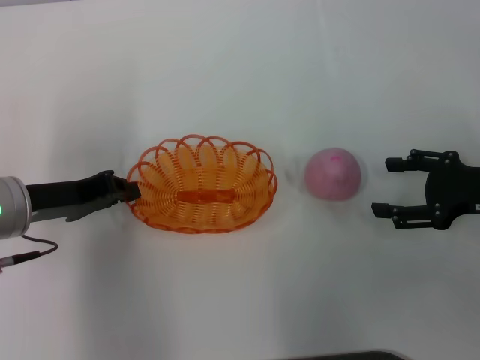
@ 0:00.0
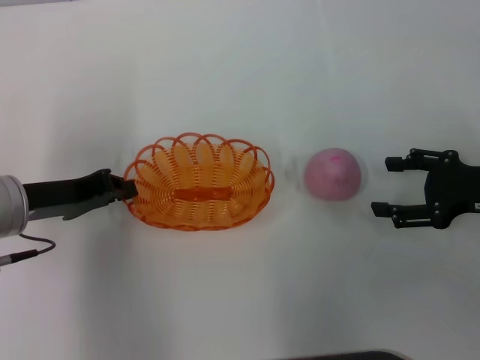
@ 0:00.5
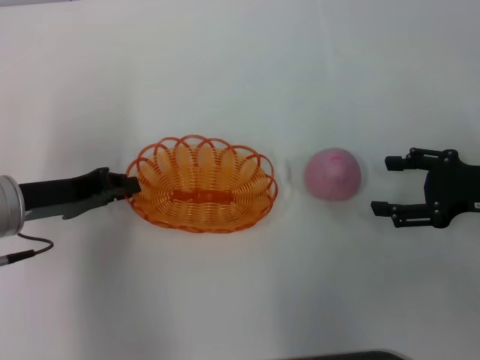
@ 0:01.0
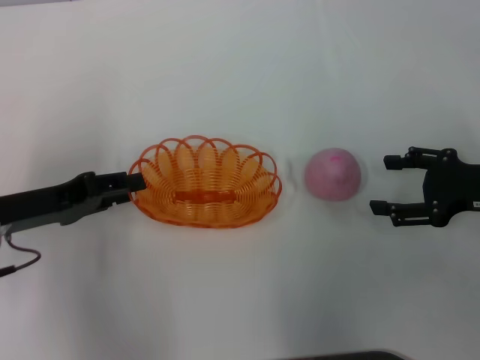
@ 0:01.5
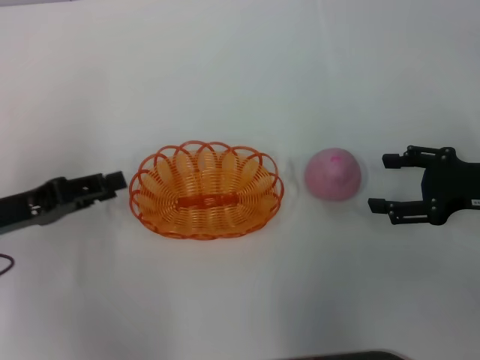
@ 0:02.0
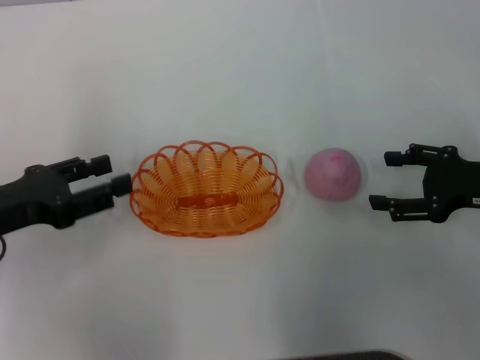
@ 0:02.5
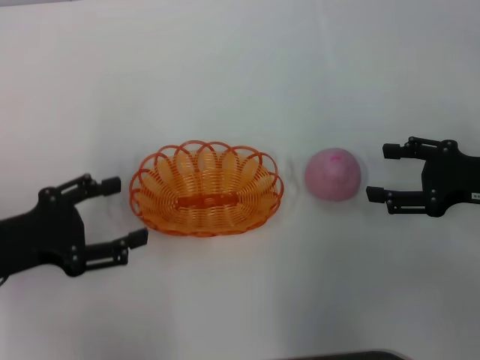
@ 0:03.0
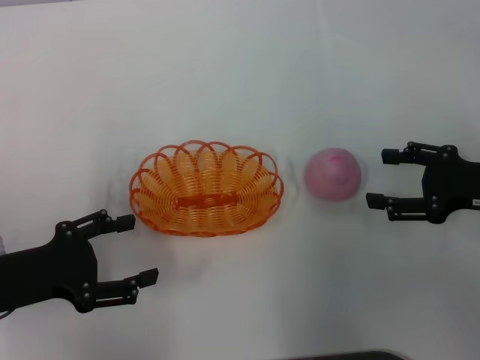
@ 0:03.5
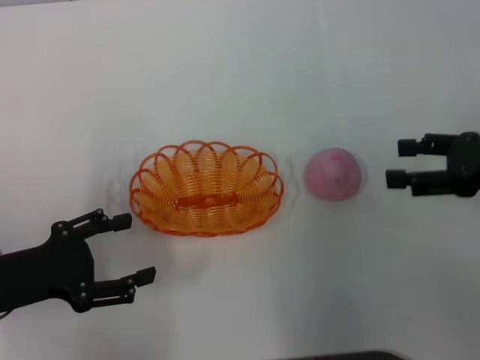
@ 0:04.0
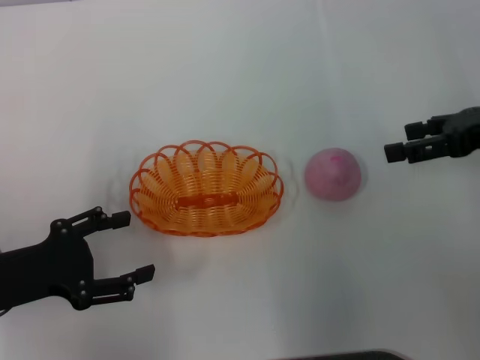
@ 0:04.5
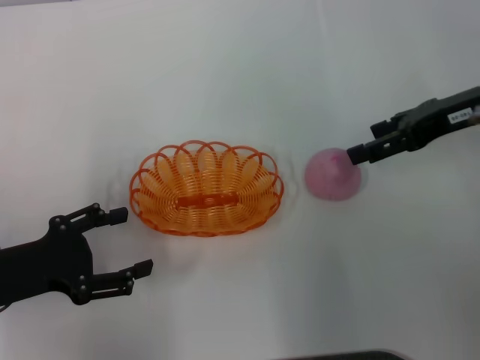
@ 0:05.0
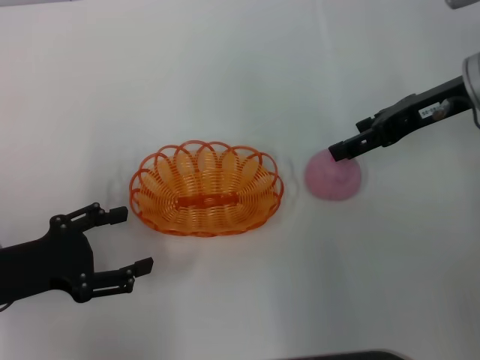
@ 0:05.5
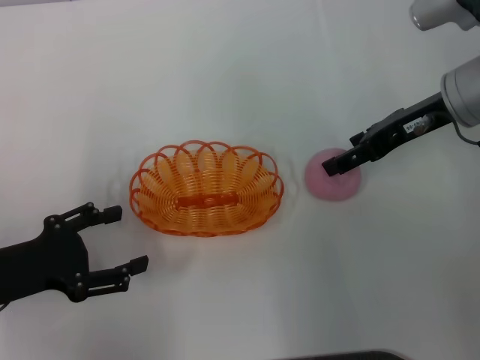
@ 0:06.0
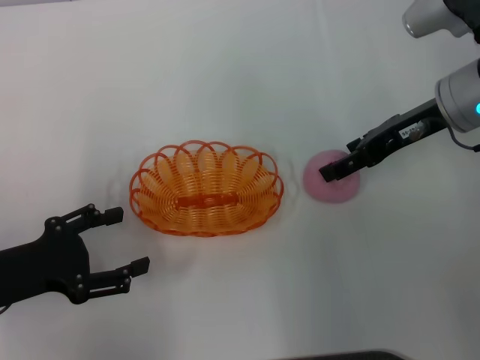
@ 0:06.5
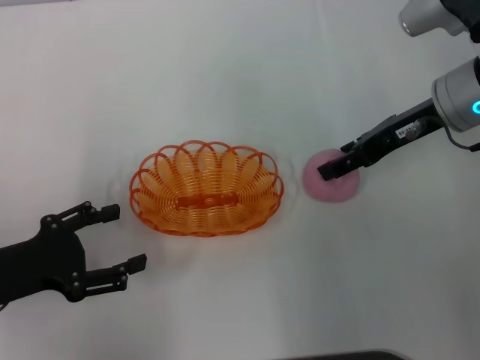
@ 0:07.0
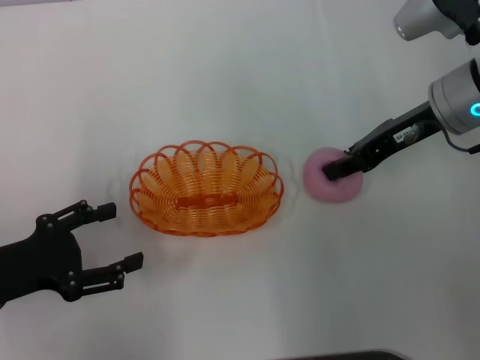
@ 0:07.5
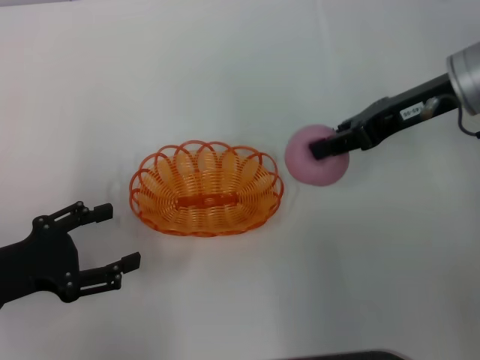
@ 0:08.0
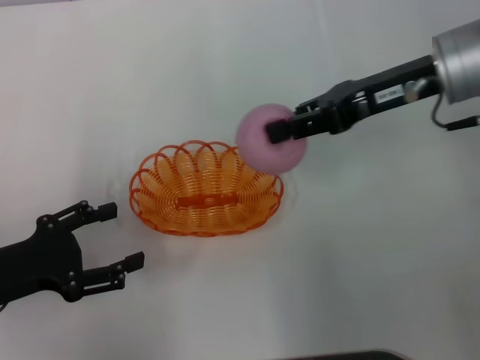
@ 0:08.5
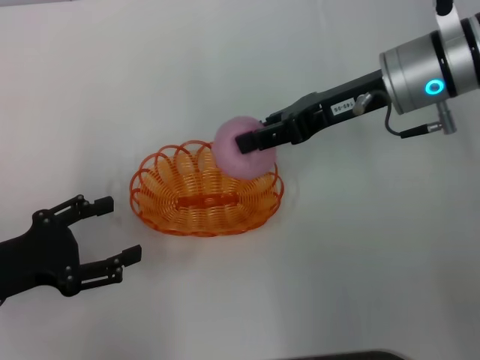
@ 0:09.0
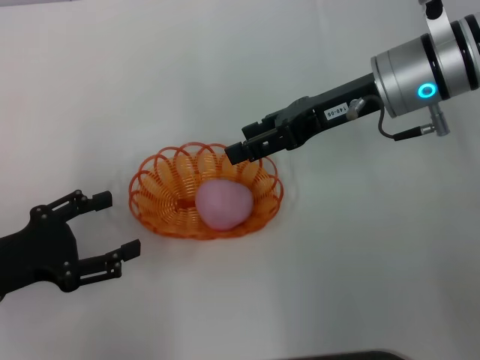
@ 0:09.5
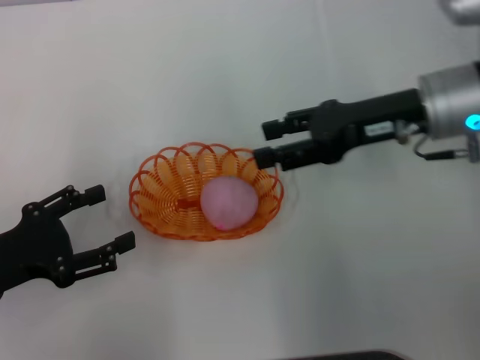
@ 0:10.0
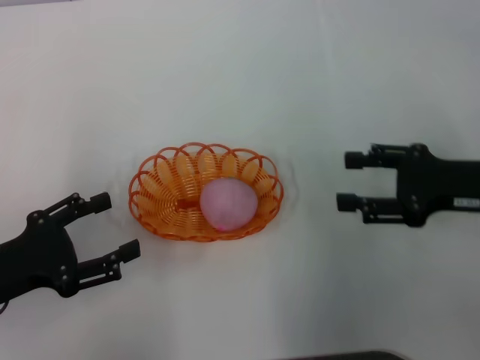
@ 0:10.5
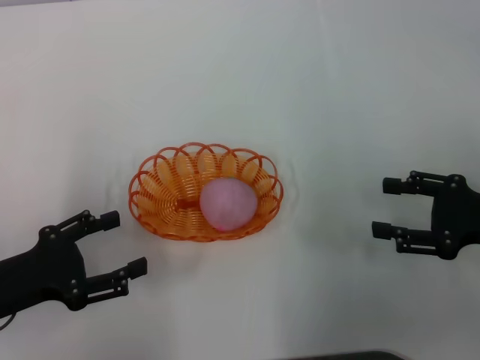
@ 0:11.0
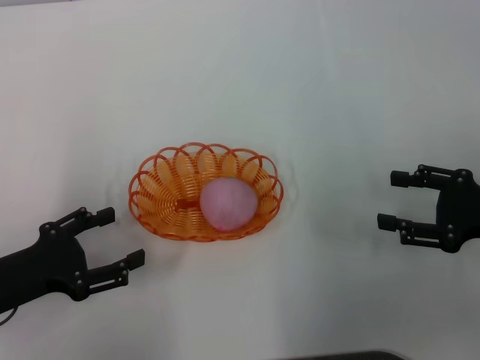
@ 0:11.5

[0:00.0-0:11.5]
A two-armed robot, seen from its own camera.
Step, 0:02.0 to 0:08.0: Pick up the peach with the right gripper.
Step, 0:08.5 to 0:09.5: Place the peach into the basket with the right gripper.
0:00.0 to 0:02.0: The left gripper travels to the left by roughly 5 cm, and opens its fingers.
0:02.0 to 0:04.0: The left gripper opens.
0:04.0 to 0:06.0: The right gripper shifts some 15 cm to the left and forward.
0:06.0 to 0:07.5: The right gripper closes.
0:07.5 to 0:09.5: The right gripper shifts roughly 5 cm to the left.
0:09.5 to 0:11.5: The right gripper moves to the right, backward and downward, some 20 cm.

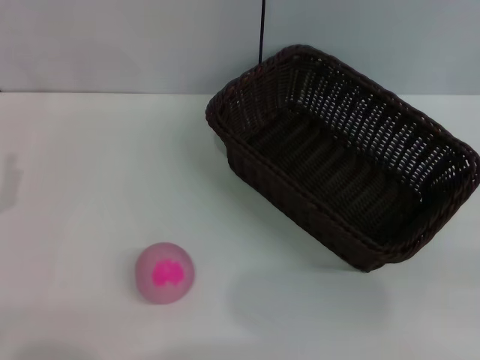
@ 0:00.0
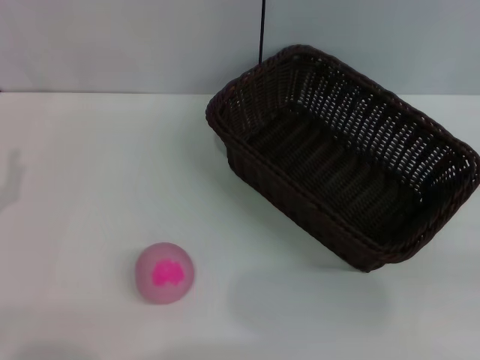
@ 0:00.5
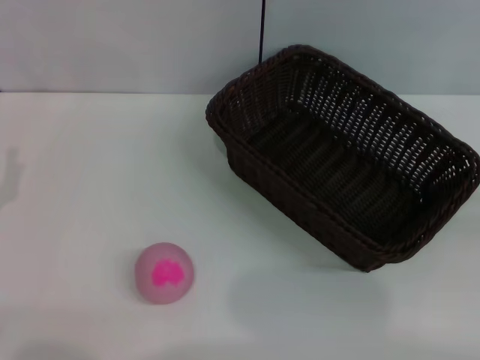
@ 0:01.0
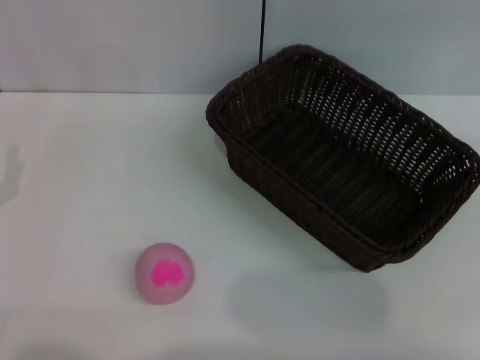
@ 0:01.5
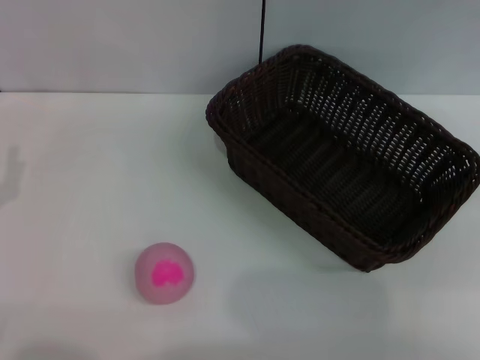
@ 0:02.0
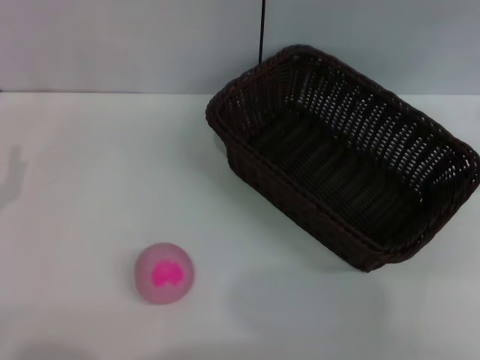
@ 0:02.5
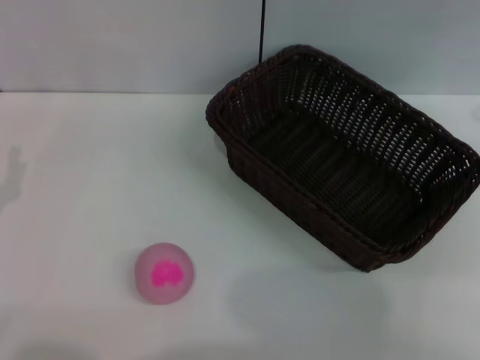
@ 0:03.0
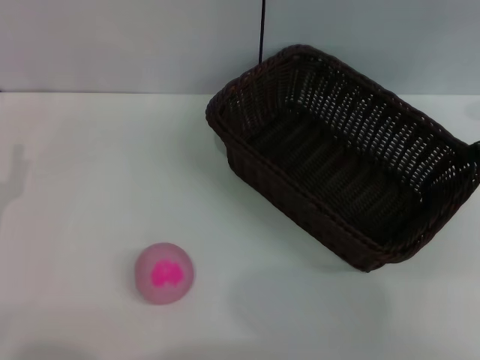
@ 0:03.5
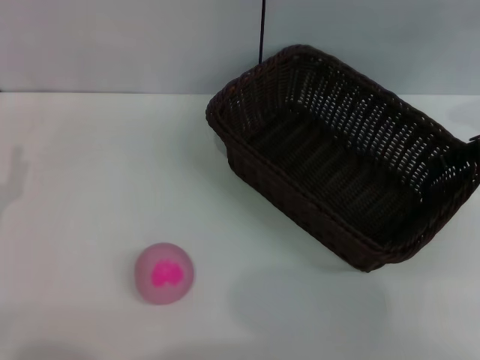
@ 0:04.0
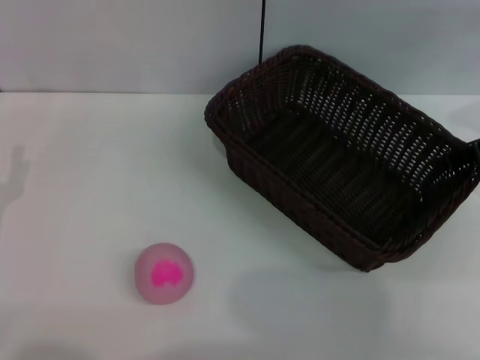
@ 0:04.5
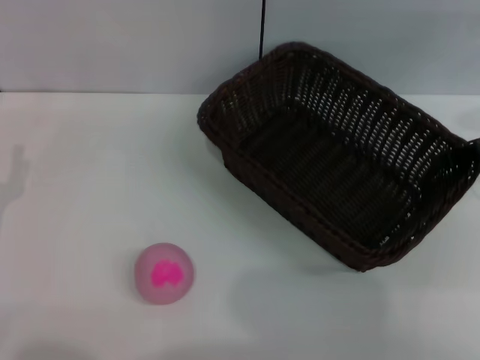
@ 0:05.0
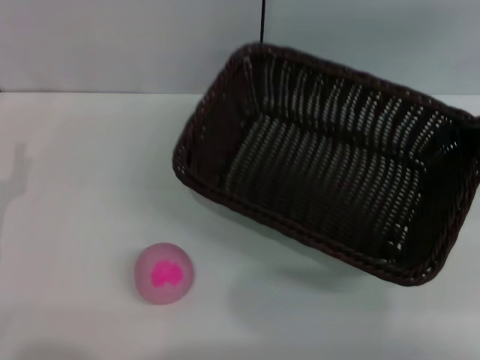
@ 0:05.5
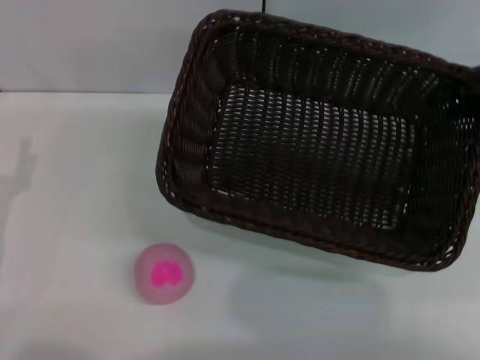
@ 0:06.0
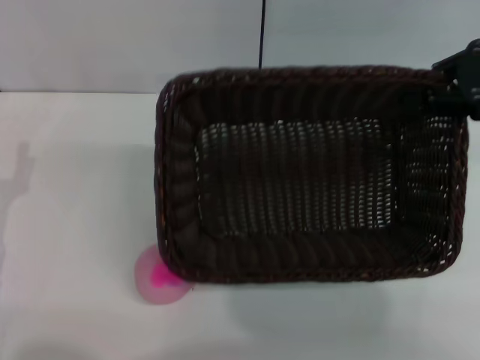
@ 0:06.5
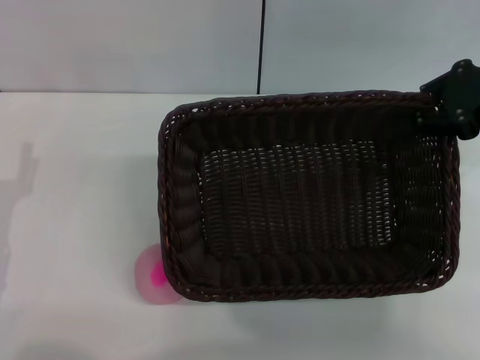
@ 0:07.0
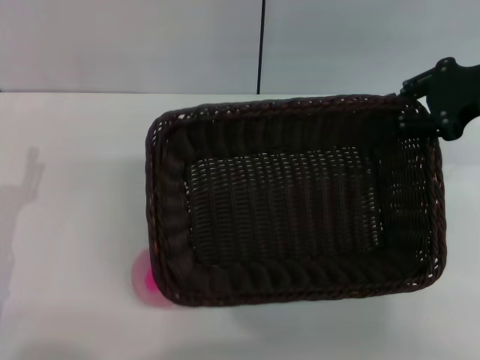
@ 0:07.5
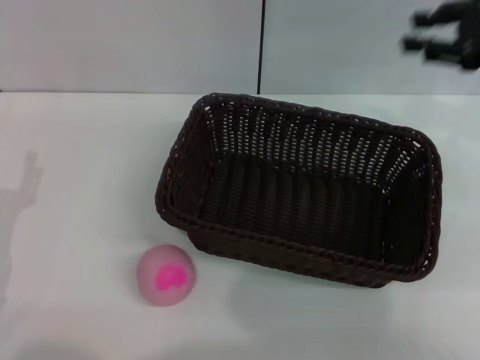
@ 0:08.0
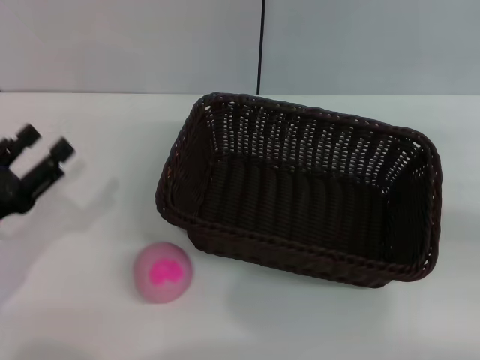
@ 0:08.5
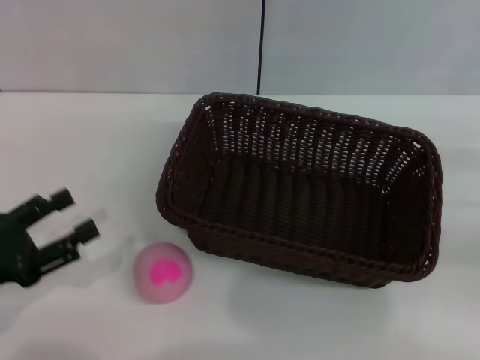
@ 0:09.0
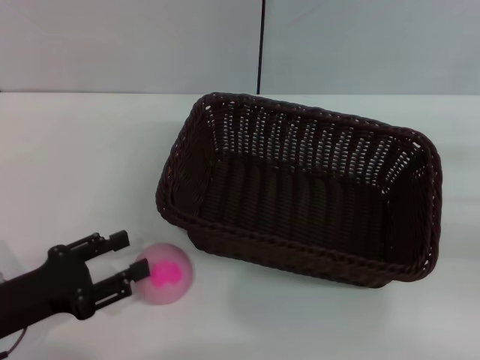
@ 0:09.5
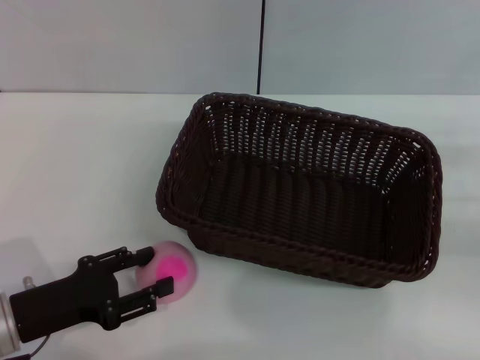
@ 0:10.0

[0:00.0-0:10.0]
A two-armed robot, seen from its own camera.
Step, 0:00.0 to 0:05.5: Pick up the dark basket with the right gripper.
Step, 0:06.0 to 0:07.5: Place the dark basket in the center of view with the right gripper.
0:00.0 to 0:02.0: The right gripper shifts roughly 25 cm upward and forward, and opens its fingers.
0:04.0 to 0:06.0: The right gripper moves some 5 cm, and closes its fingers.
0:06.0 to 0:08.0: The right gripper opens up.
0:08.0 to 0:10.0: The right gripper travels downward, backward and to the right by approximately 20 cm.

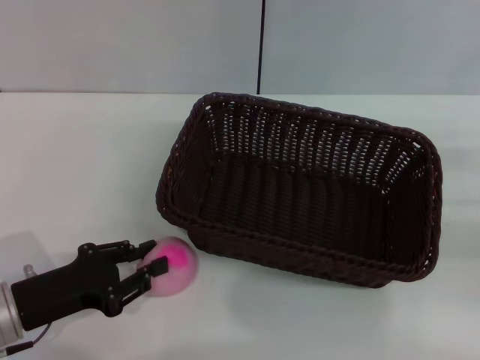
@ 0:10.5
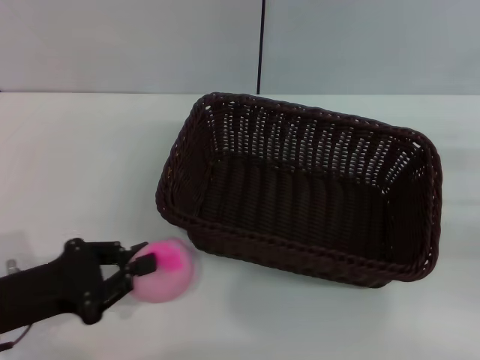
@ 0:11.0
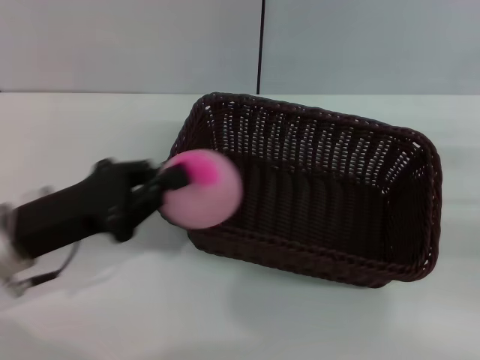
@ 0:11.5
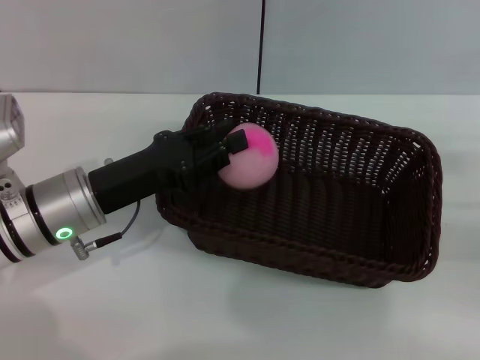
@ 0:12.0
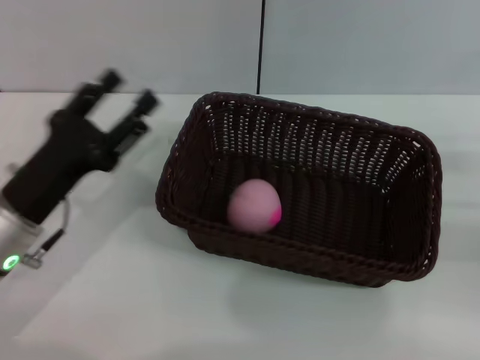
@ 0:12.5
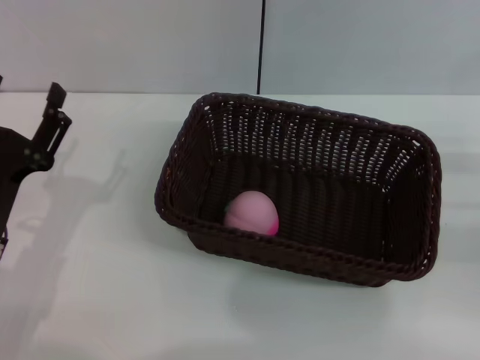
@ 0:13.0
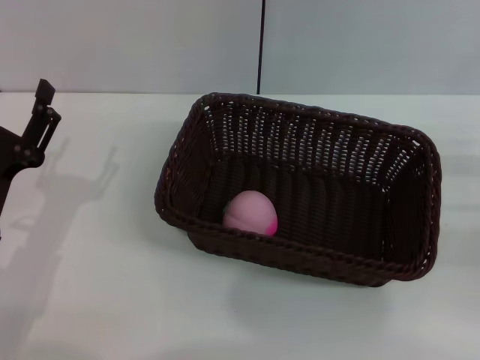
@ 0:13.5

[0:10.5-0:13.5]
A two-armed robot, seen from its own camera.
Step, 0:11.5 to 0:12.0: Place the peach into the basket with the left gripper.
0:10.5 to 0:12.0: The left gripper goes about 10 cm forward and to the right, and closes.
0:12.0 to 0:13.5: The left gripper shifts some 10 cm backward and to the left, and opens up.

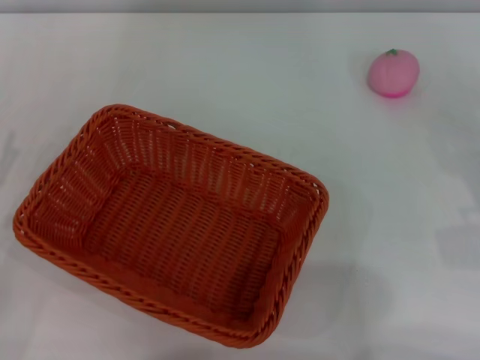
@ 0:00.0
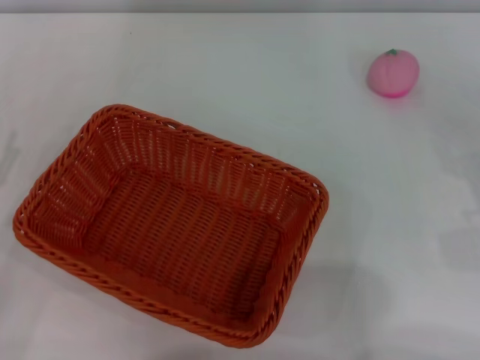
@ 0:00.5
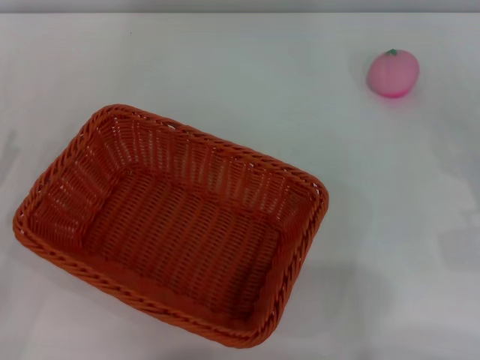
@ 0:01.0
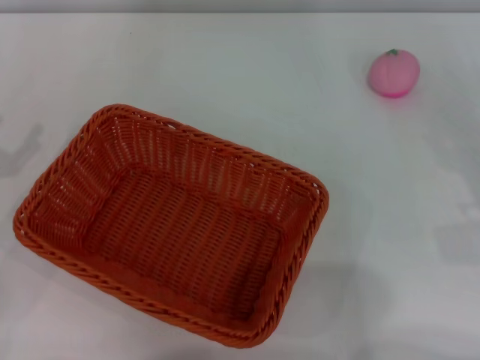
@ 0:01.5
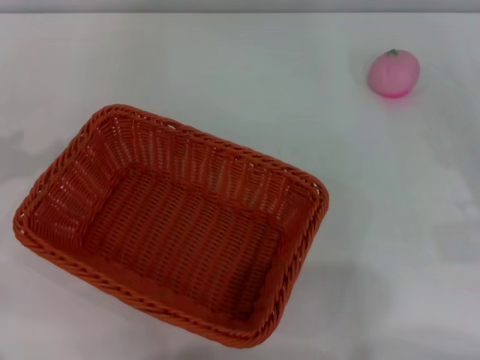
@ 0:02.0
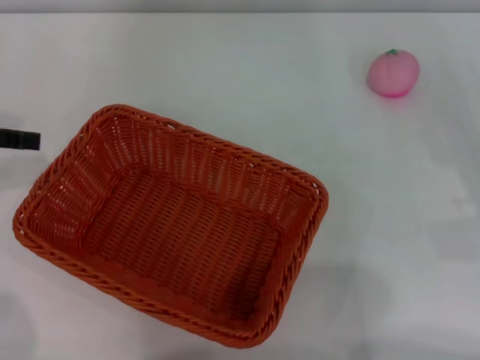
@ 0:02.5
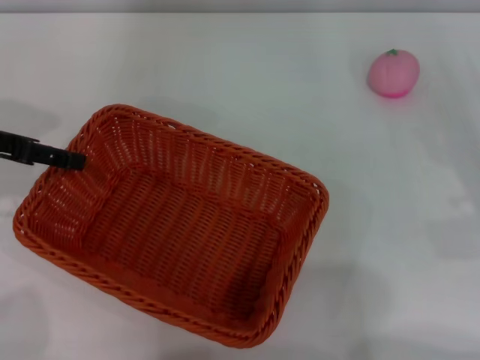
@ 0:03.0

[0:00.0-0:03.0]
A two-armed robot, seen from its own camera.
0:01.5 to 0:03.0: The left gripper shifts approximately 15 cm forward, to the right and upward.
